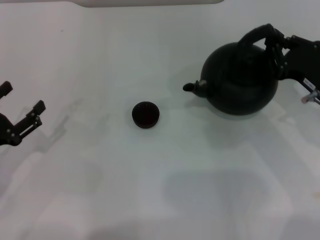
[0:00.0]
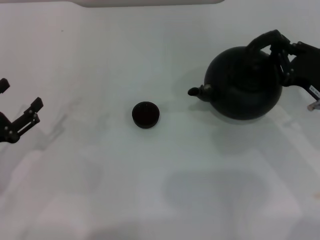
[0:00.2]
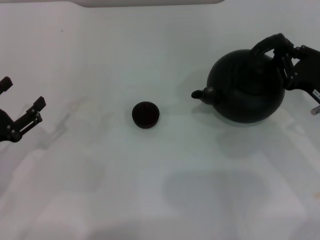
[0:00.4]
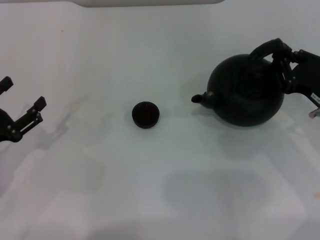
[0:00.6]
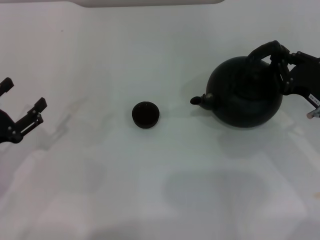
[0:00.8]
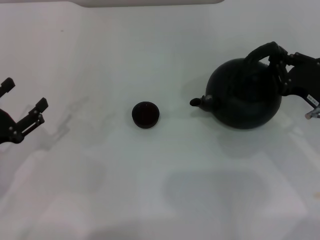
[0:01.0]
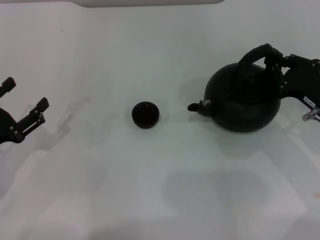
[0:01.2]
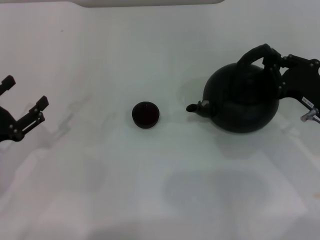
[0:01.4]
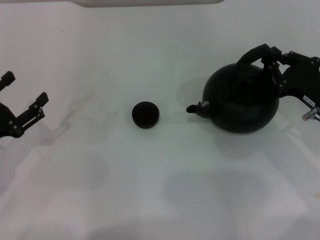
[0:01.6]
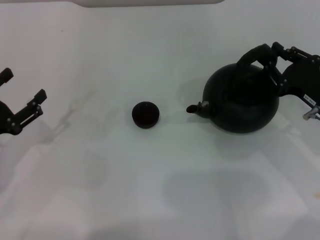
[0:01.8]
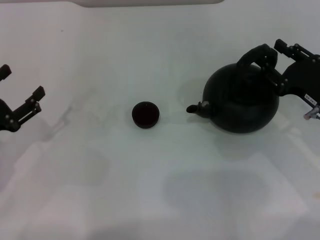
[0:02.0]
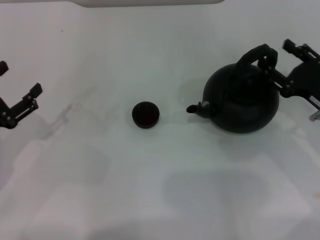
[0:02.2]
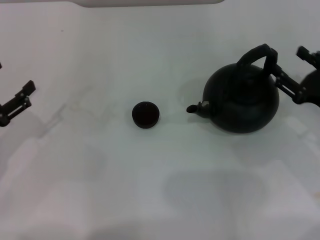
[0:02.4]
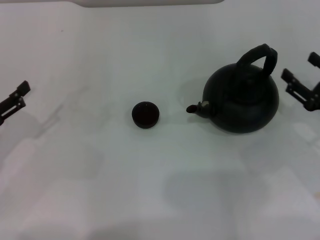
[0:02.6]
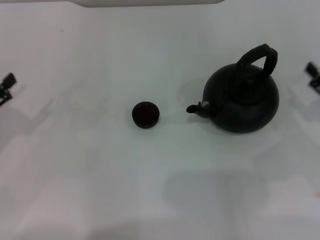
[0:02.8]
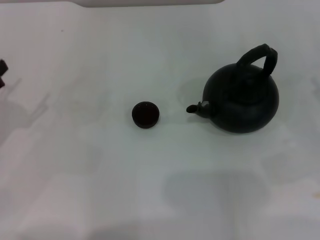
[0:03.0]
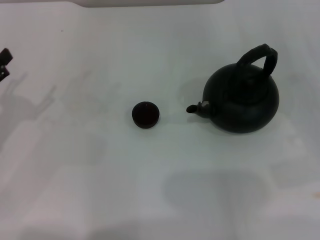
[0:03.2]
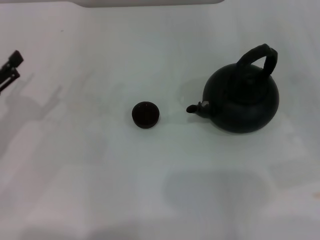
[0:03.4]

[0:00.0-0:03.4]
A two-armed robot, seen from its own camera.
Task of the whole recording: Grasp the handle of the teapot with one hand and pour tea into the teacup.
Step, 0:00.0 to 0:02.6: Put down the teapot with the right gripper.
0:00.0 to 0:01.6: The grippers stay close to where they were, moving slightly.
0:01.6 to 0:03.4: The right gripper goes approximately 10 cm to the right and backward, and opens.
